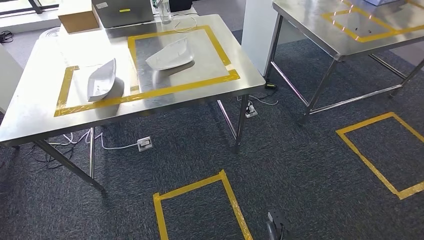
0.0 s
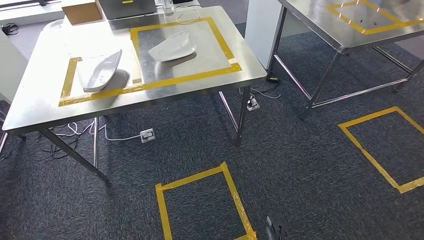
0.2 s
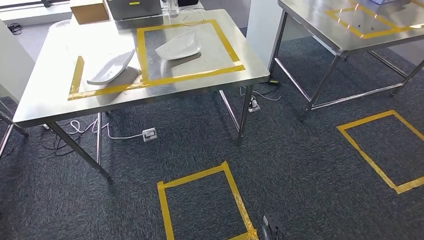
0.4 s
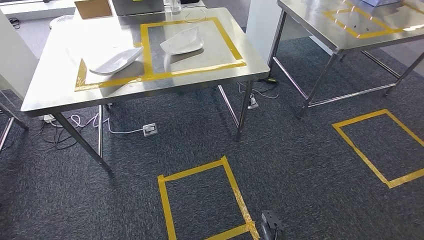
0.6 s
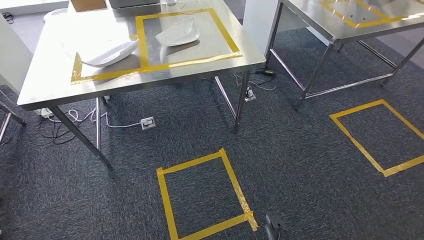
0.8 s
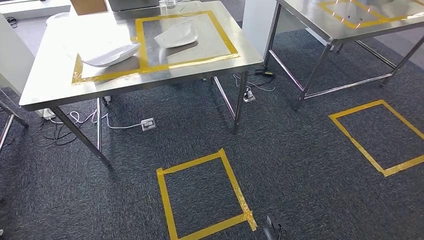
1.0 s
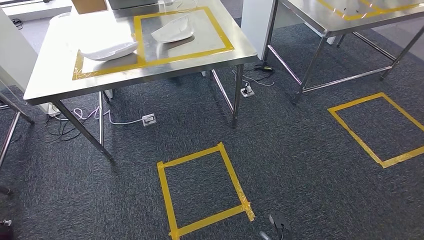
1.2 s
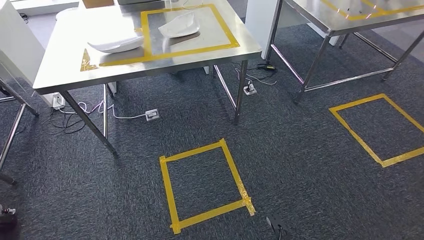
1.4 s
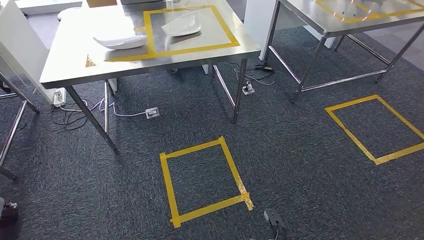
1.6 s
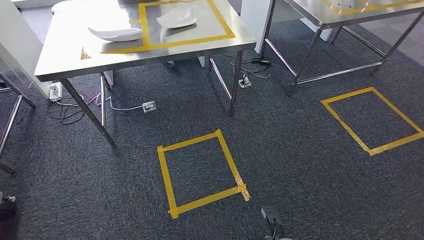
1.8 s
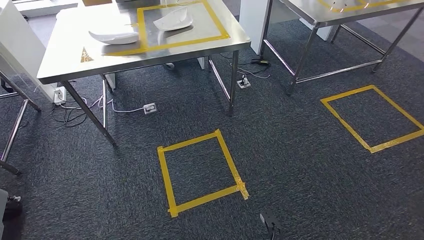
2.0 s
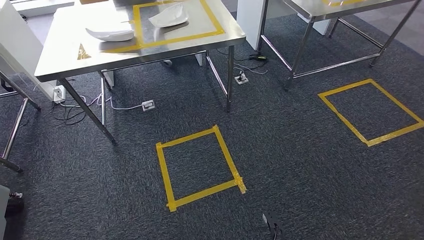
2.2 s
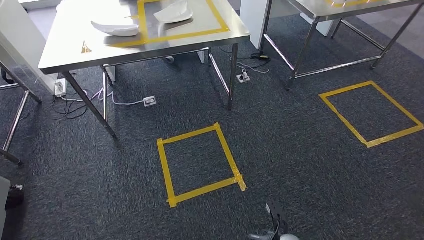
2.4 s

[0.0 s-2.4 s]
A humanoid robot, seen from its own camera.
Step, 0.0 to 2.4 s: Return to the initial position at the workbench.

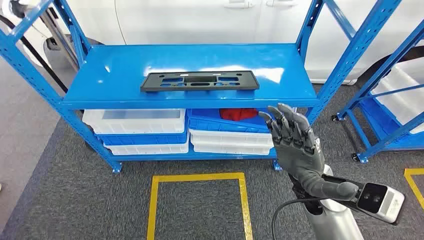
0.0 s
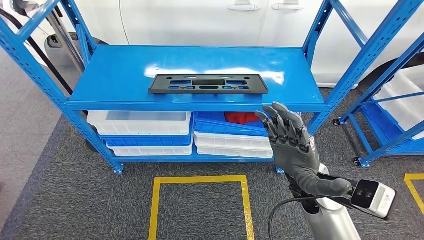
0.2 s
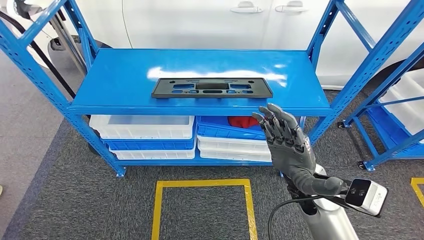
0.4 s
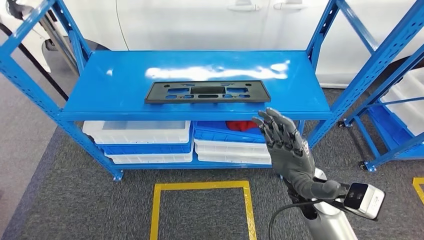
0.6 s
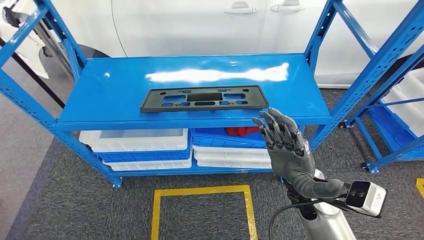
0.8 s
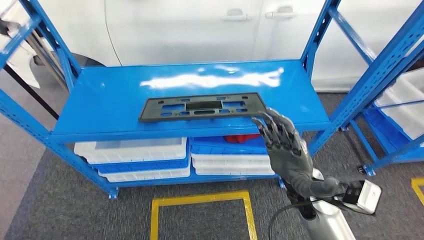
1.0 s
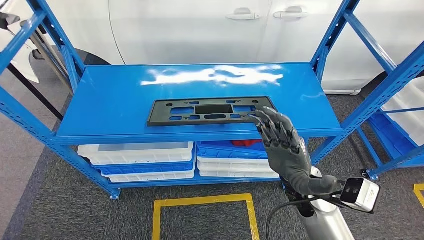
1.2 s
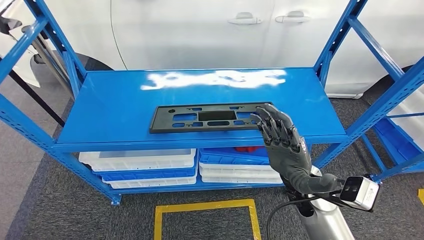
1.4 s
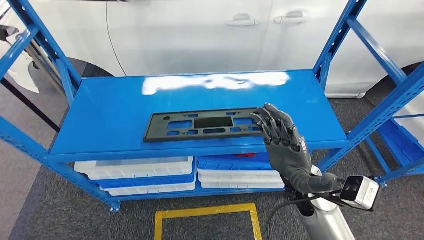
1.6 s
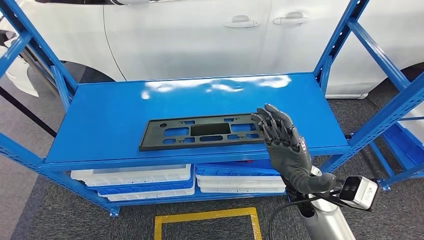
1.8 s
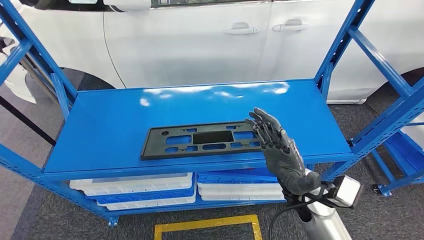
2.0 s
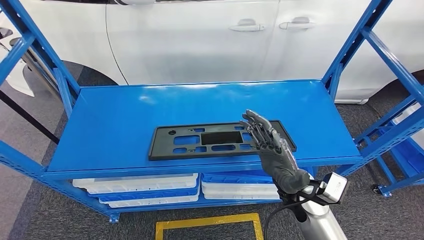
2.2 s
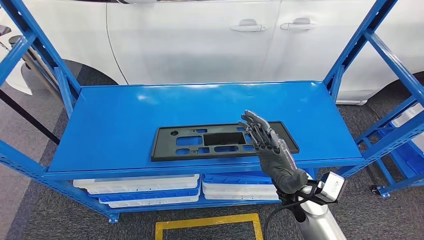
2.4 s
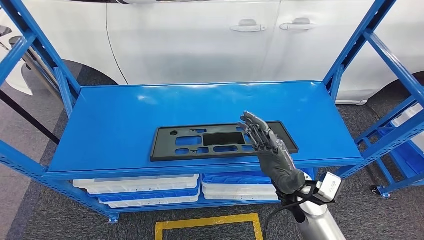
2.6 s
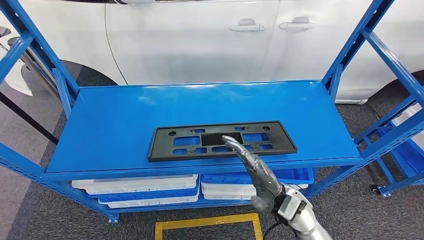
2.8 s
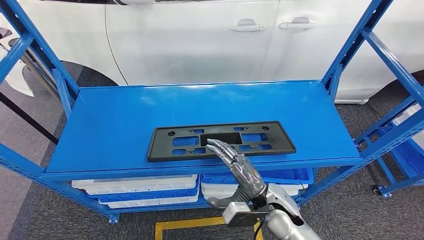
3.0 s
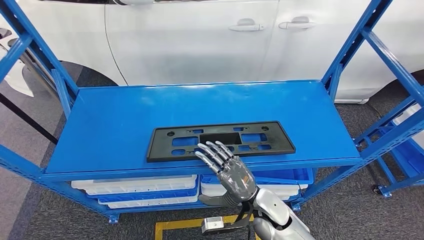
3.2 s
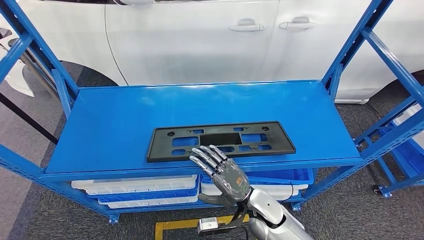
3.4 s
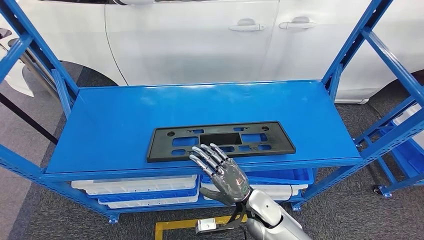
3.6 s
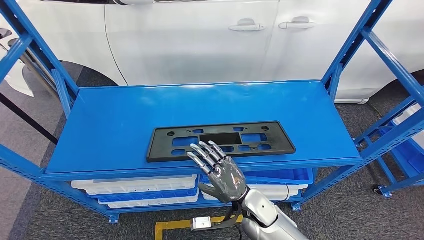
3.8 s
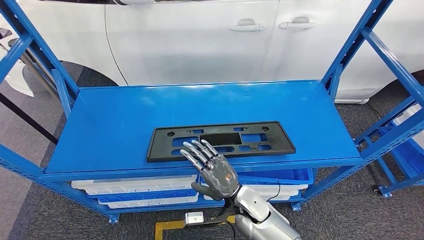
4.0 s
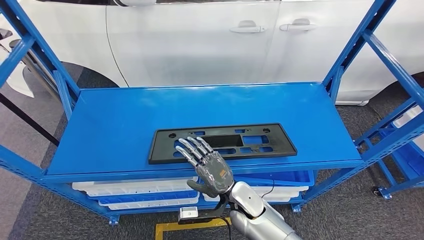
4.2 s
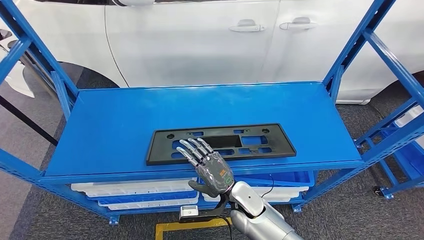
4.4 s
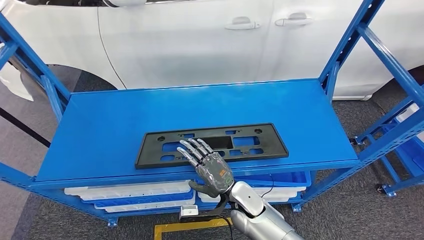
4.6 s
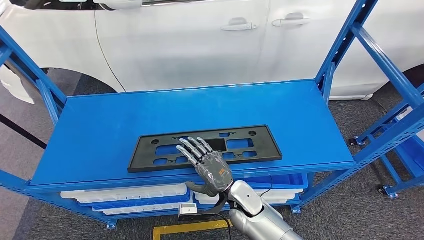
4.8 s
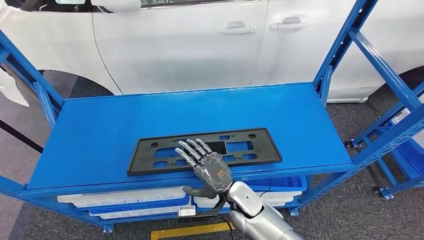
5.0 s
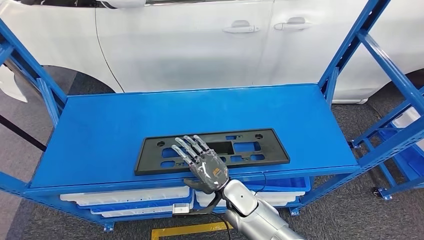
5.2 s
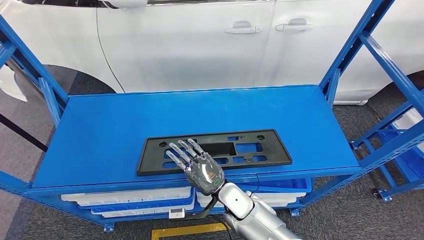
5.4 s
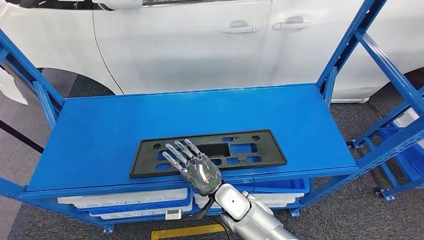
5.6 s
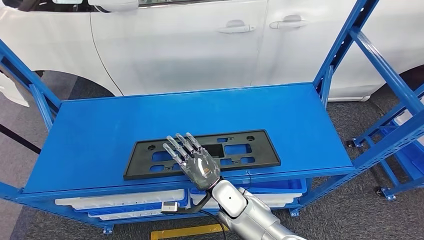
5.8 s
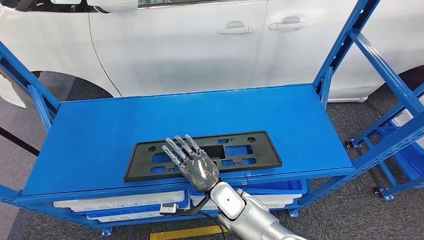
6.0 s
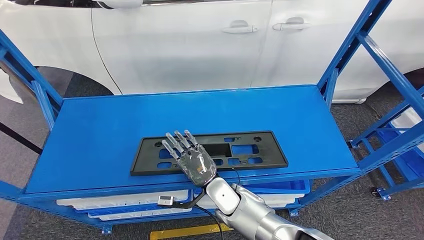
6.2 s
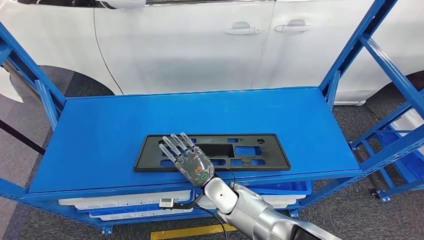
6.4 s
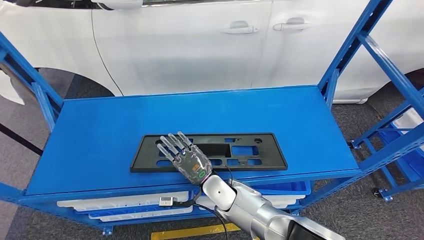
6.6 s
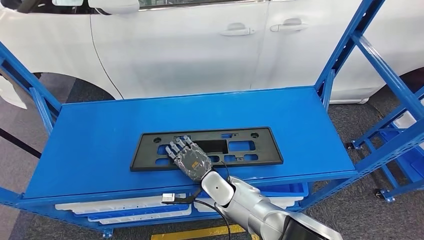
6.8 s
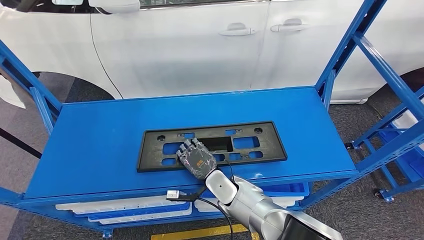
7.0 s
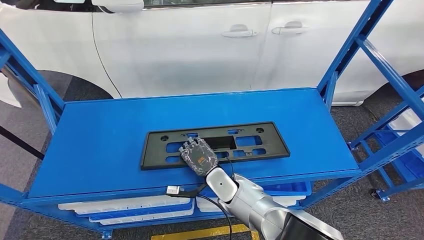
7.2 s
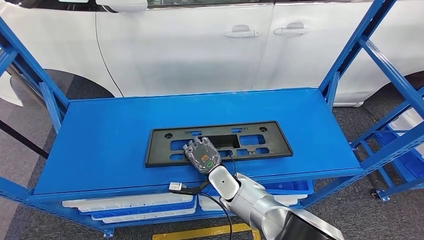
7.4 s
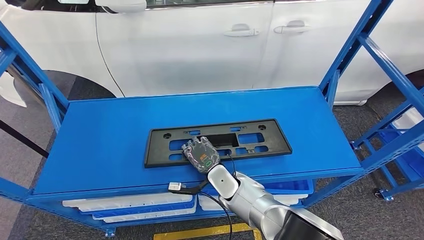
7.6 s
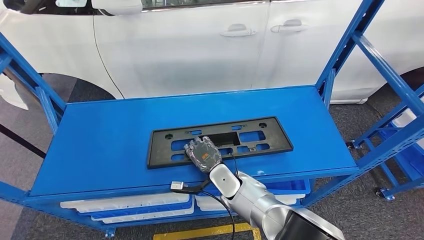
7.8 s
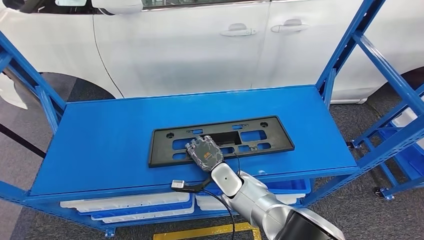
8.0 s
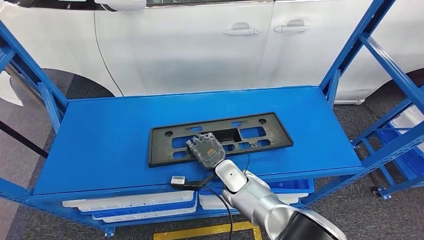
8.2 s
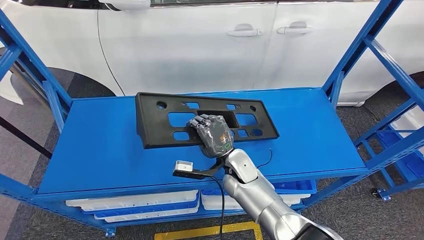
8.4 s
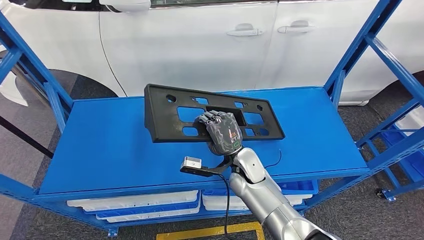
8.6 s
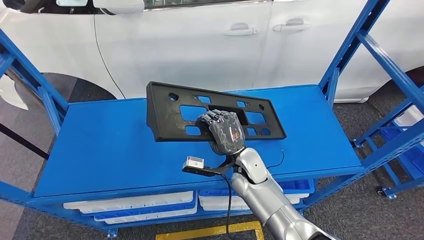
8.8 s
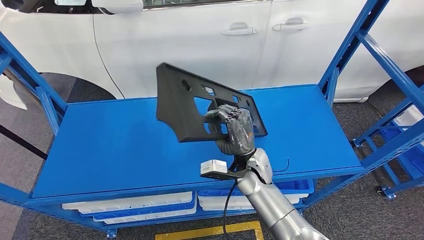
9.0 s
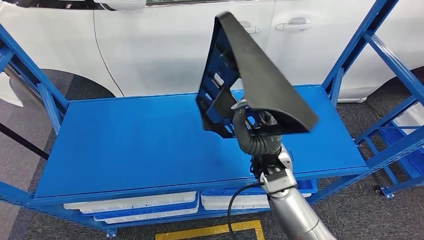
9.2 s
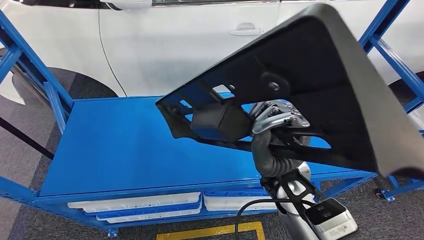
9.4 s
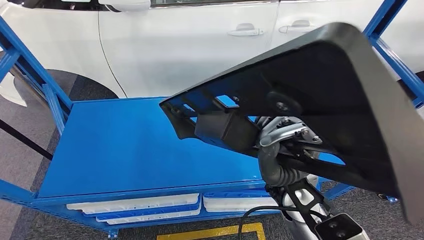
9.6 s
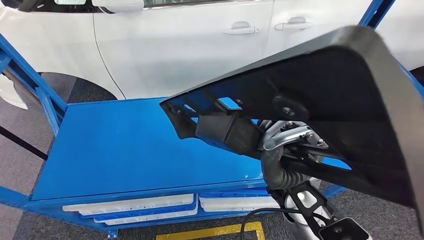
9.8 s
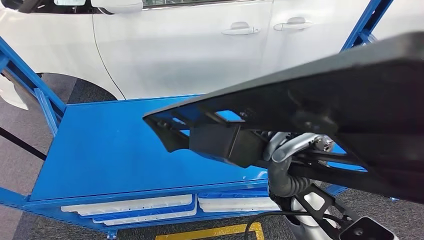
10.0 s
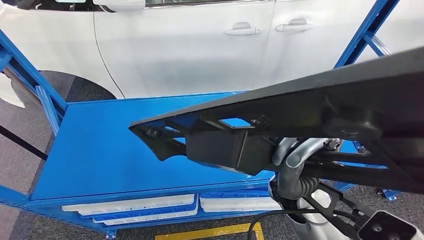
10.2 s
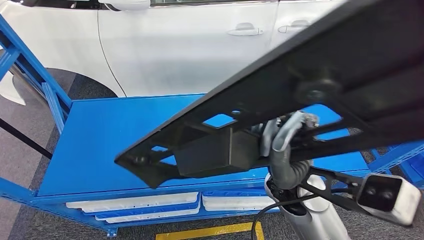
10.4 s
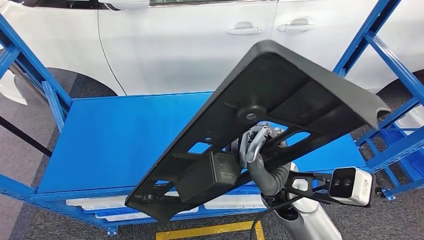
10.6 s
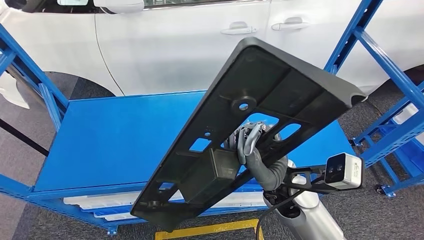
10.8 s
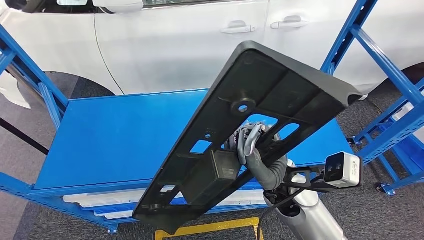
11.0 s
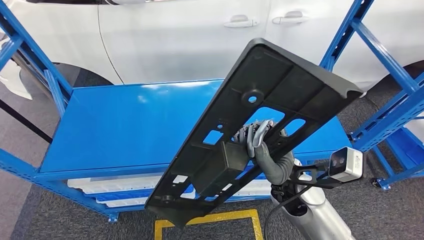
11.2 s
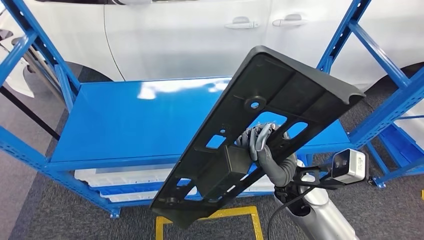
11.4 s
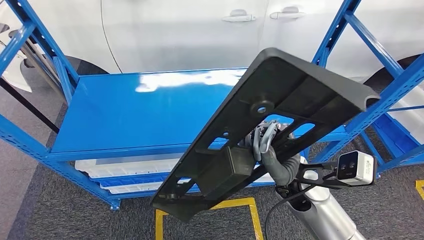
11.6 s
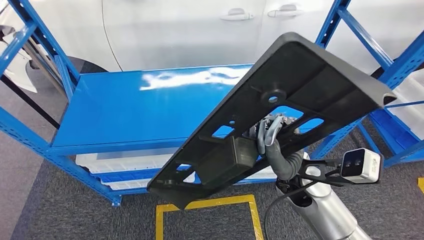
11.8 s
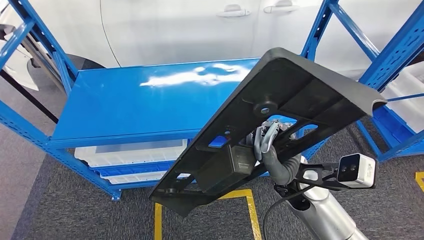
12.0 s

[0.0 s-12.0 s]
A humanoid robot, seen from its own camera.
Step, 0.0 to 8.6 s: Pick up the large parts from the shelf.
3.0 to 4.4 s: The right hand goes some 10 cm to the left.

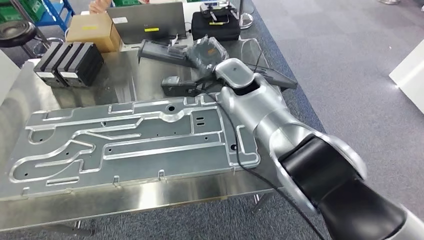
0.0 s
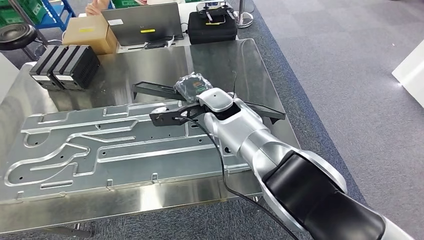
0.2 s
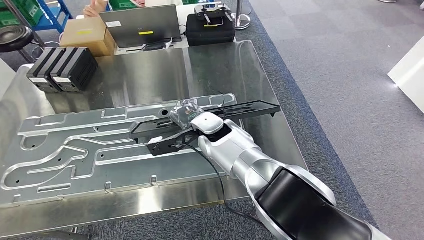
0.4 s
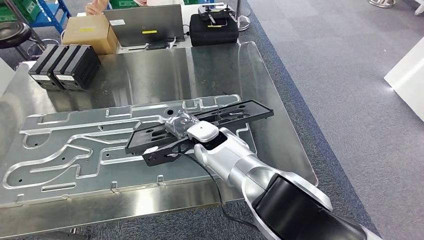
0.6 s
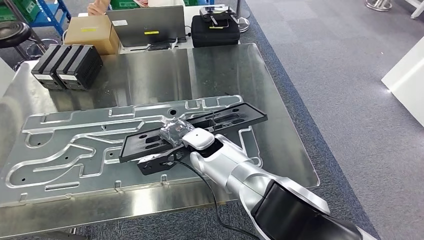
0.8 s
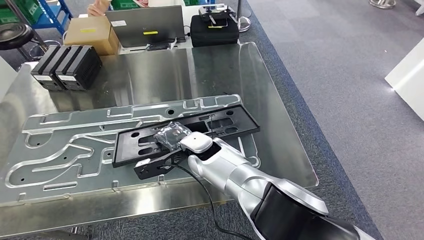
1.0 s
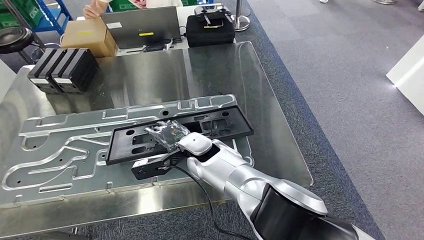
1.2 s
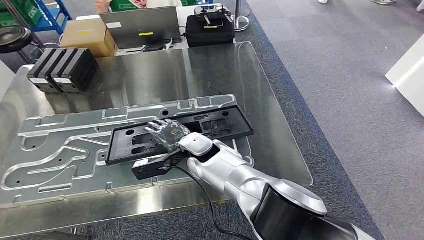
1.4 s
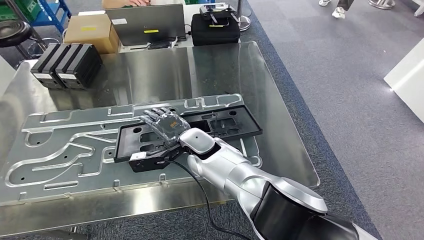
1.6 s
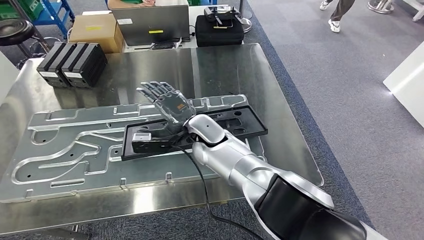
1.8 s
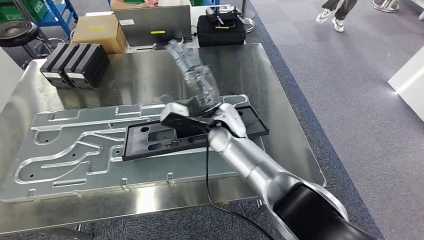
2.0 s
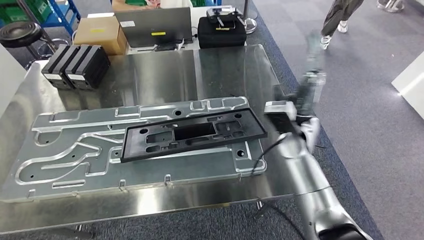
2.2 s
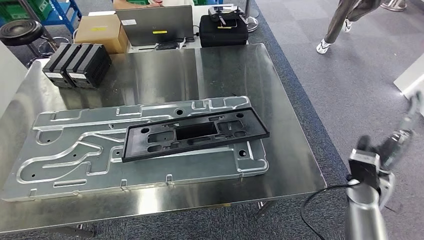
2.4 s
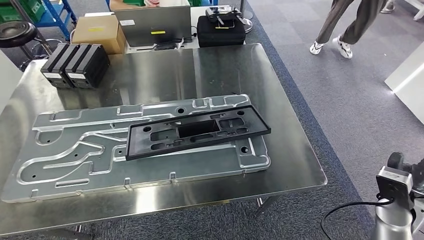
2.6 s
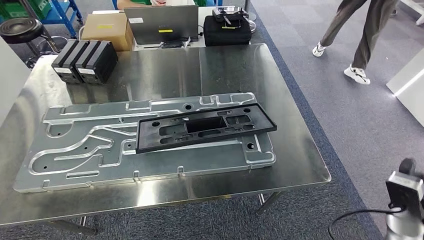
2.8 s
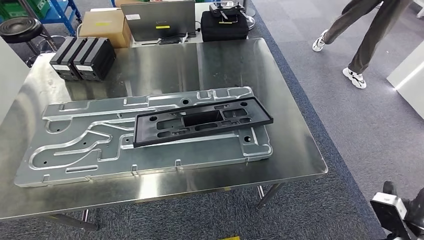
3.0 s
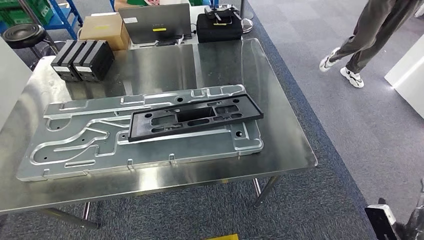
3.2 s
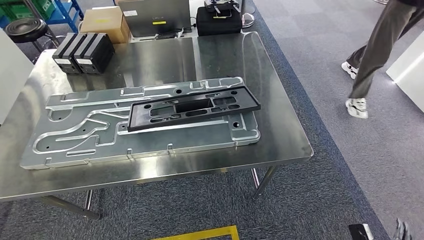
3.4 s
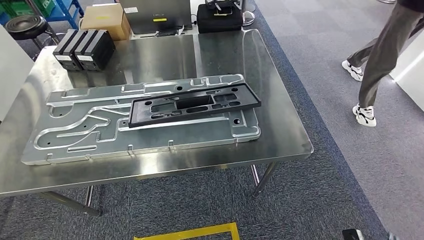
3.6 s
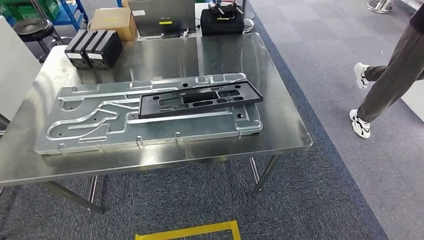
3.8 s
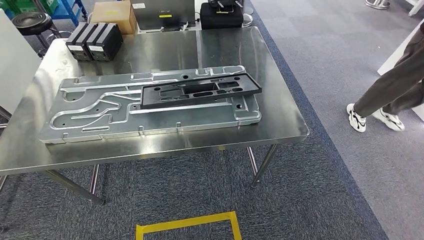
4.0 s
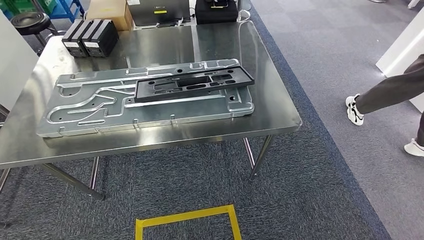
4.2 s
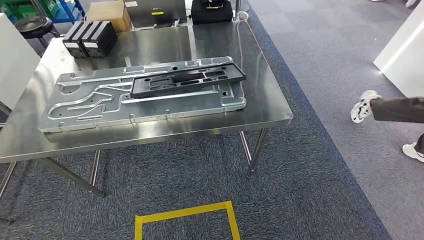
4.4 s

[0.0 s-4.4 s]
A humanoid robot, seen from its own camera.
Step, 0.2 to 3.8 s: Insert the large parts into the corresponding slots on the workbench.
